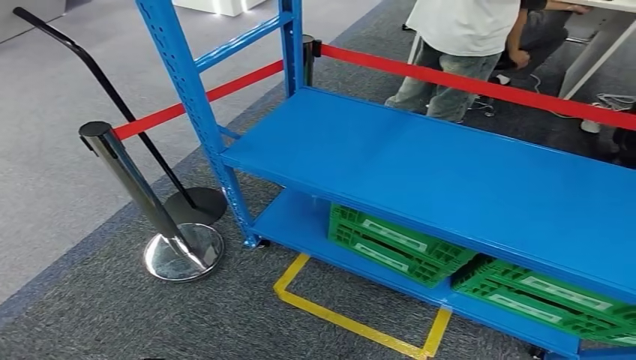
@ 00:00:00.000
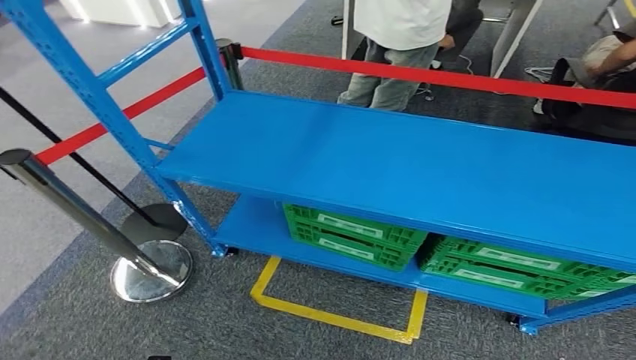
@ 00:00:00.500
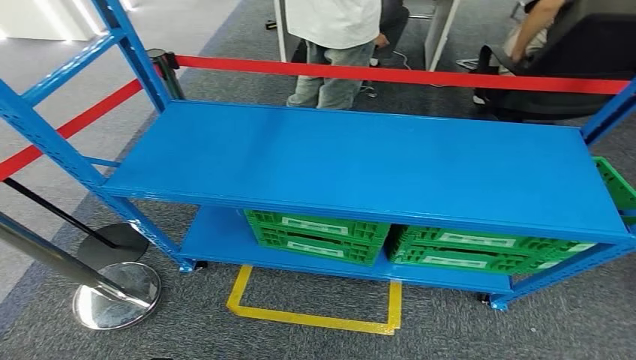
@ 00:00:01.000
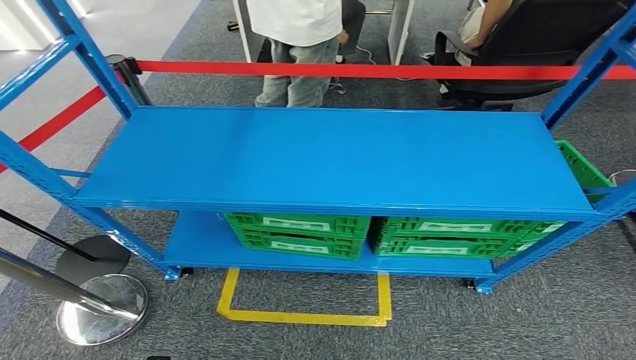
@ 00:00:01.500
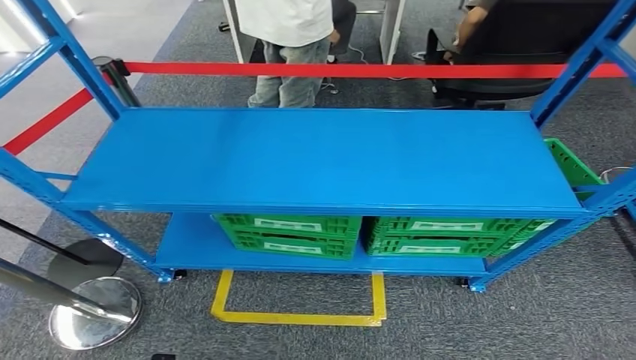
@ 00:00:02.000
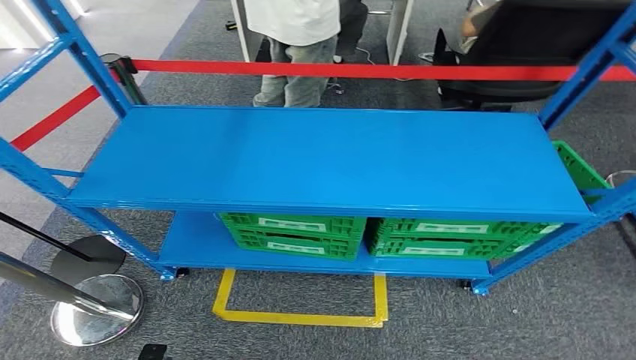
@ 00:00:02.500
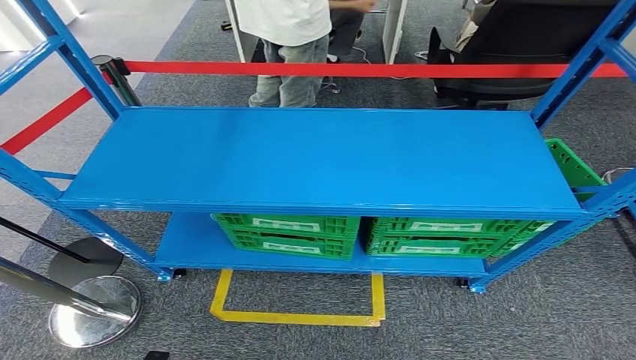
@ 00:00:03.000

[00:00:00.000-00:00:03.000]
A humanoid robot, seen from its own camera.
Step, 00:00:00.000 to 00:00:03.000: Move to the initial position of the workbench.
00:00:01.500 to 00:00:03.000: The right hand moves some 5 cm.
